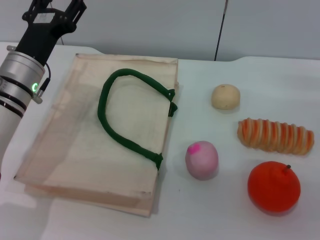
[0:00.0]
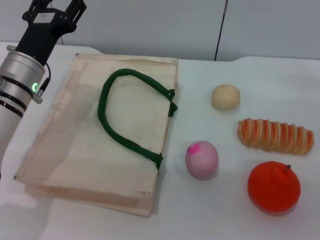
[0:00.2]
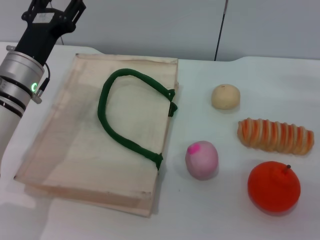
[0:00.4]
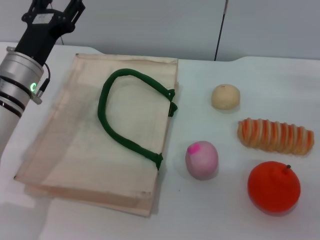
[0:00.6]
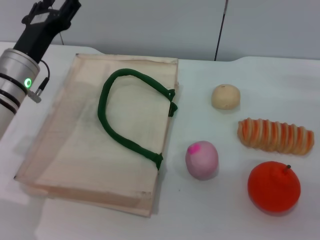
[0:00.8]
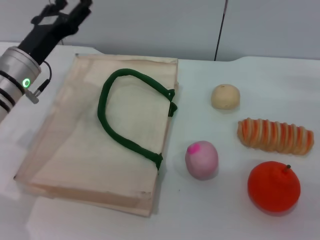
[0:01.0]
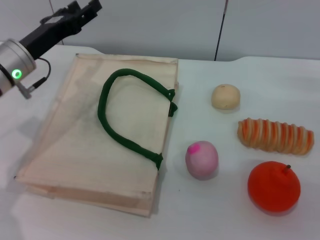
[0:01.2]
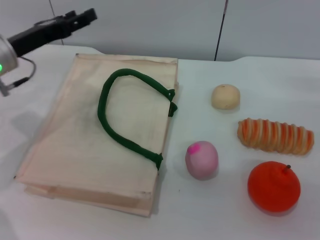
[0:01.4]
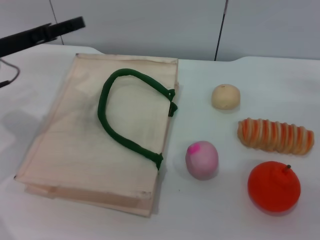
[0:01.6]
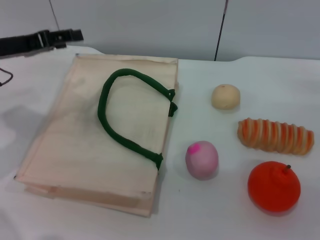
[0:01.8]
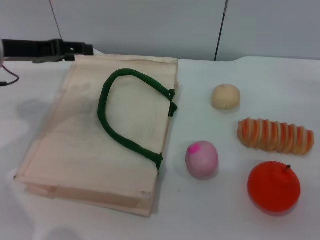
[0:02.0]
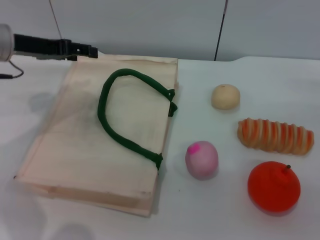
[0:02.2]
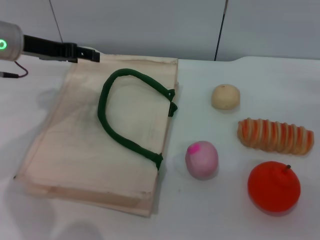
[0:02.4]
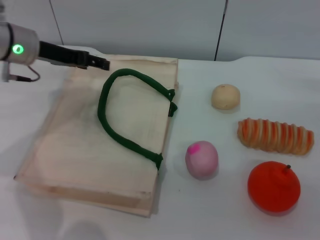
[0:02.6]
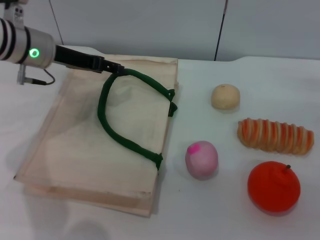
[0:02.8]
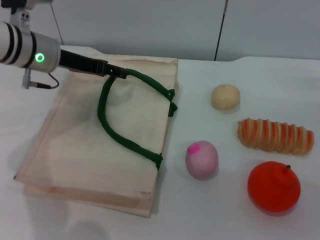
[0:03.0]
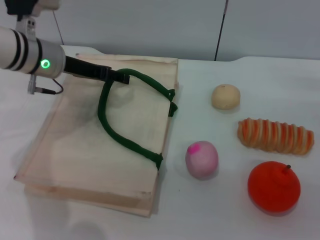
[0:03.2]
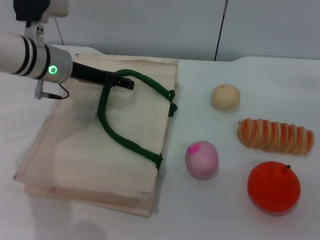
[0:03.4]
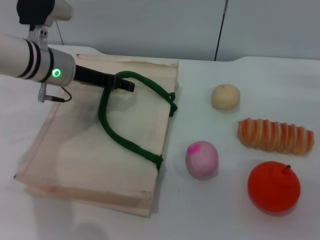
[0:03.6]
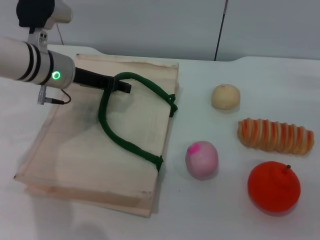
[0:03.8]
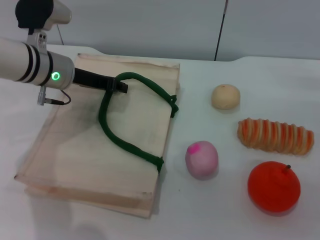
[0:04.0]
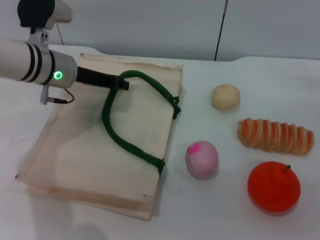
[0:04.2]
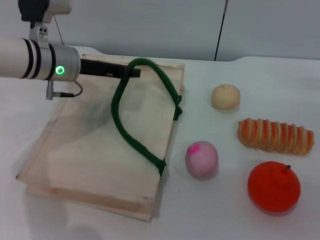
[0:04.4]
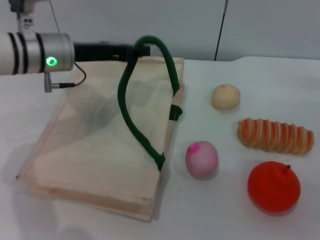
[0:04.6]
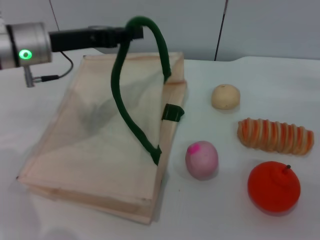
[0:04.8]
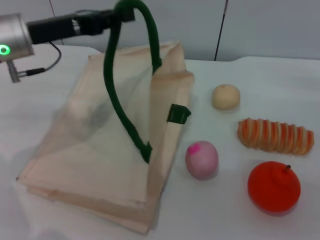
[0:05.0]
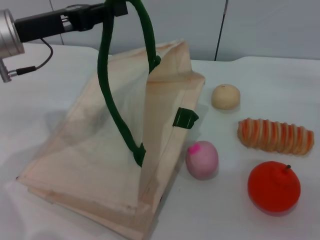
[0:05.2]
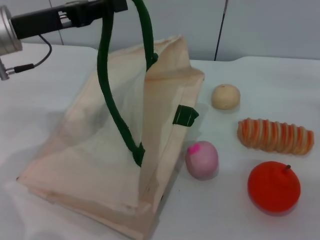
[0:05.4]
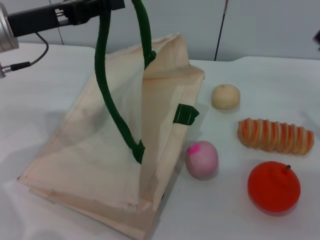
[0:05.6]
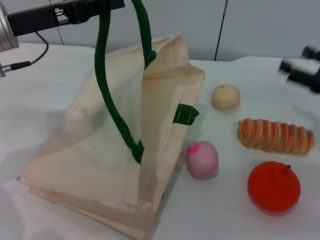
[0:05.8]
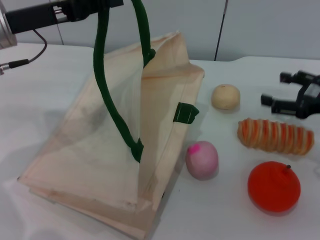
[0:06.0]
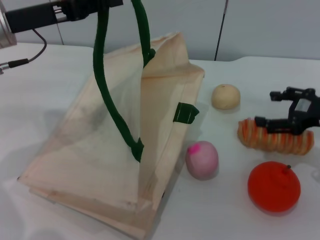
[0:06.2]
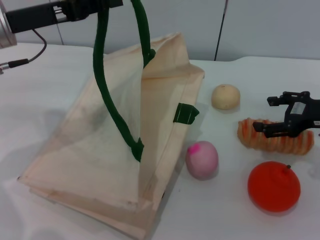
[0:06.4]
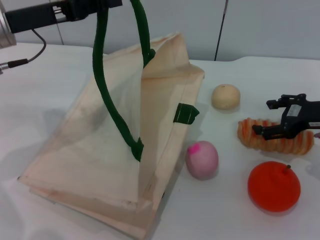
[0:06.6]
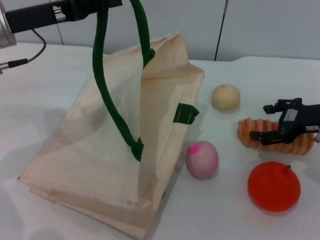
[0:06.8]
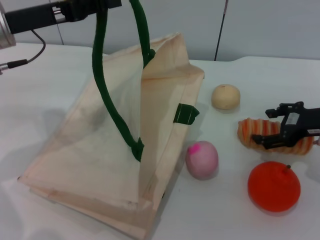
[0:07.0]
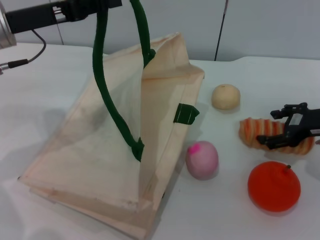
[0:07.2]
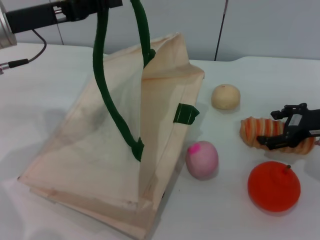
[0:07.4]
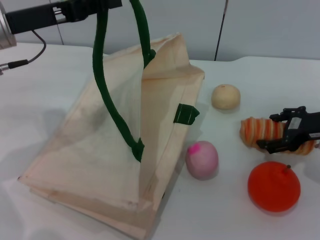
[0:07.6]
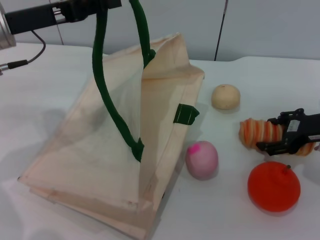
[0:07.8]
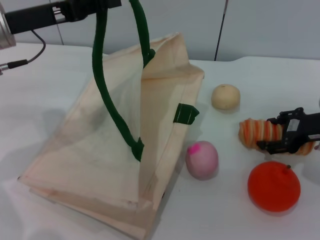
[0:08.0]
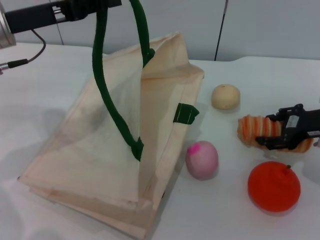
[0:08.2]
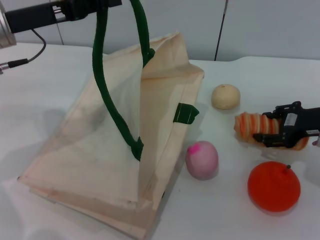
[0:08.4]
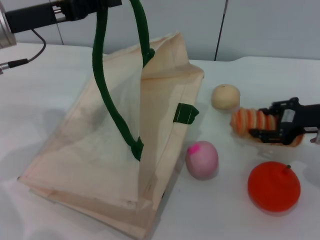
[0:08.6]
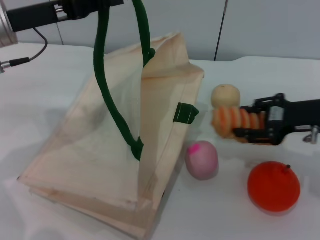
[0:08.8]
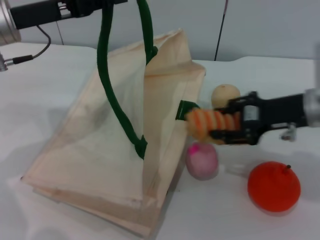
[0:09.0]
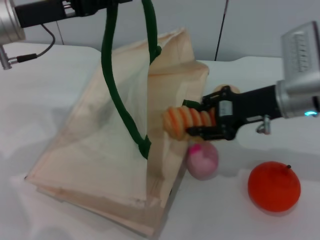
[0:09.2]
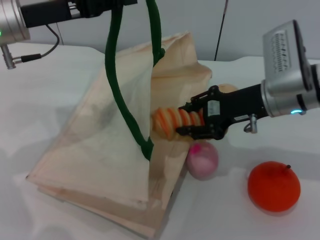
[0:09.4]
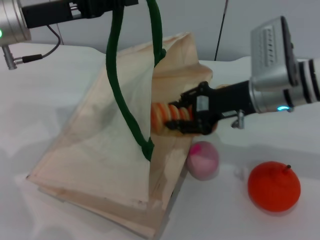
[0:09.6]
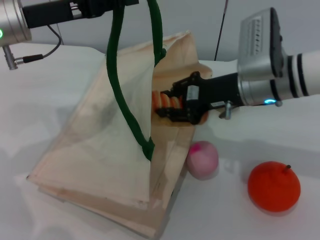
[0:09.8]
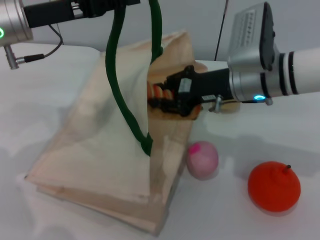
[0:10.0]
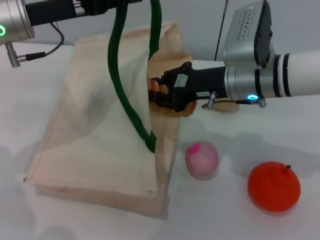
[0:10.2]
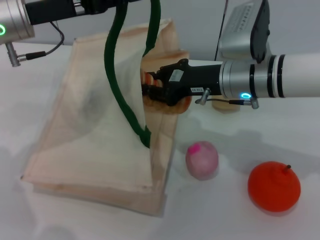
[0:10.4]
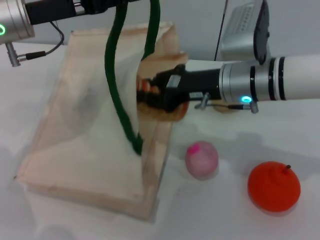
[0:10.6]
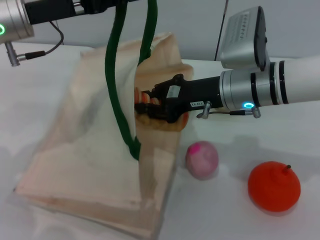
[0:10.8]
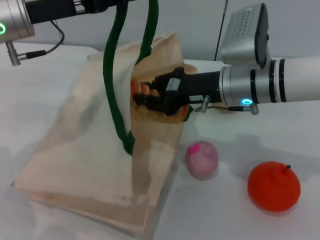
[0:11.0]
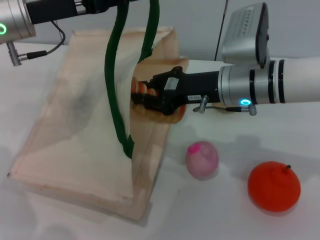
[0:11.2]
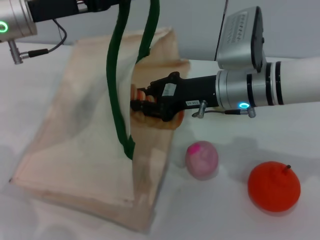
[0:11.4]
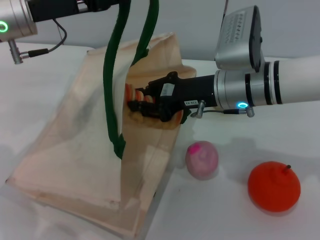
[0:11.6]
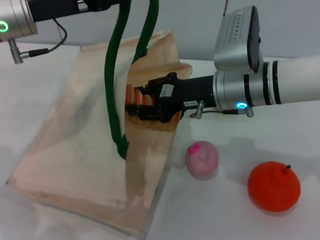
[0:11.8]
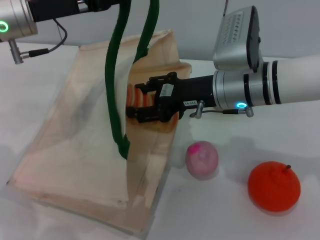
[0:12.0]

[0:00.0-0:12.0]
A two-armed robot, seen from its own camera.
Task of the whole recording: pick up the bread from the table and place it in the white handbag.
Step, 0:00.0 to 0:05.4: Lift the woven bag with the left gripper to open it.
Step, 0:05.6 to 0:08.8: Pick up the bread with the right gripper.
0:00.0 to 0:01.6: The left gripper shifts approximately 10 cm to the left and upward.
0:01.6 to 0:03.0: The left gripper shifts some 10 cm to the right and forward.
0:03.0 to 0:04.4: The left gripper closes its fingers.
0:04.4 to 0:06.0: The left gripper is displaced upward and to the left by roughly 10 cm. Meanwhile the right gripper changes place by some 5 cm.
0:07.6 to 0:09.0: The right gripper moves to the left, approximately 5 cm, and closes.
0:09.0 to 0:10.4: The right gripper goes approximately 10 cm to the left, and closes.
0:10.4 to 0:12.0: The right gripper opens up.

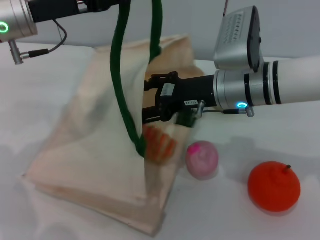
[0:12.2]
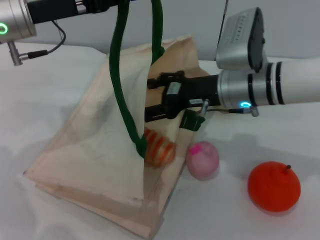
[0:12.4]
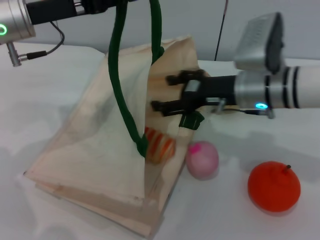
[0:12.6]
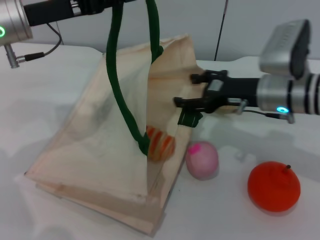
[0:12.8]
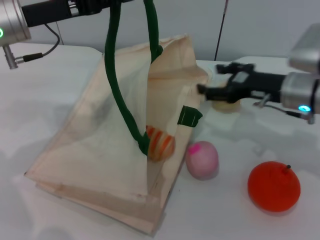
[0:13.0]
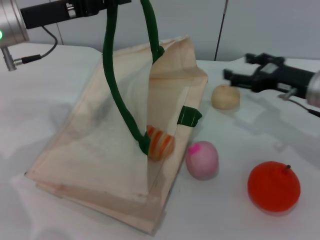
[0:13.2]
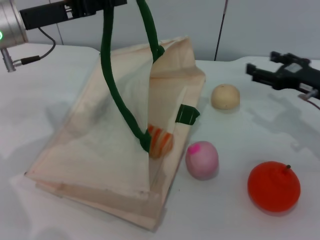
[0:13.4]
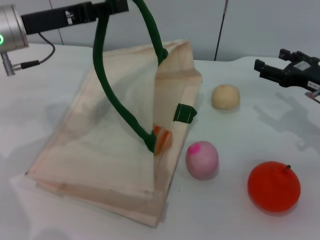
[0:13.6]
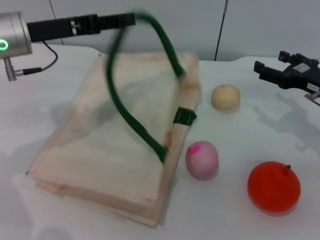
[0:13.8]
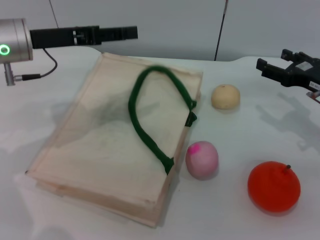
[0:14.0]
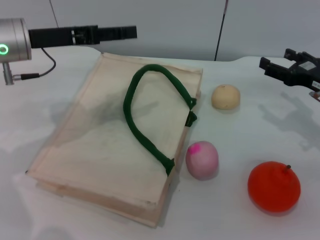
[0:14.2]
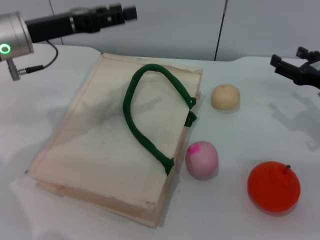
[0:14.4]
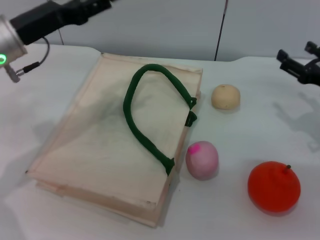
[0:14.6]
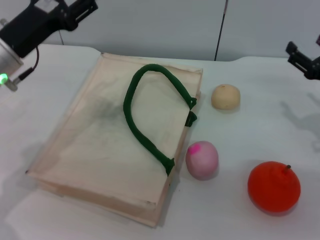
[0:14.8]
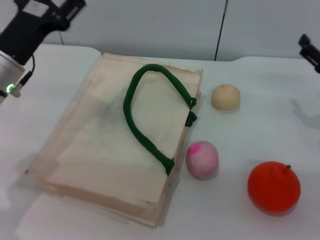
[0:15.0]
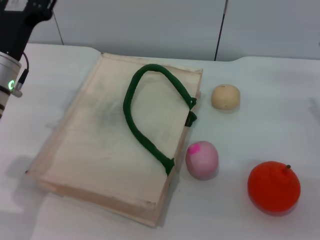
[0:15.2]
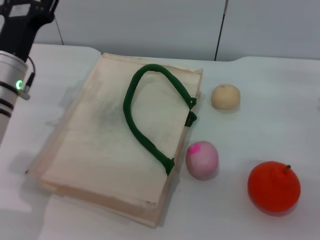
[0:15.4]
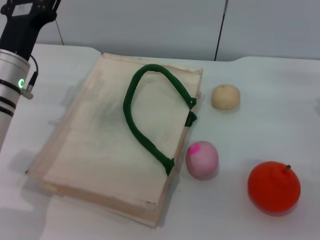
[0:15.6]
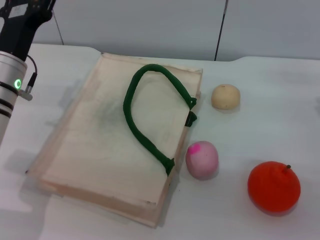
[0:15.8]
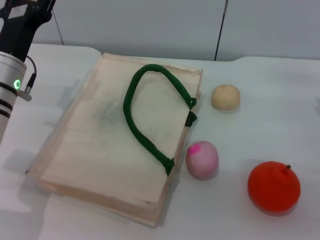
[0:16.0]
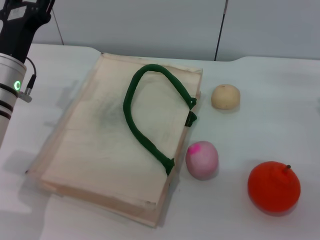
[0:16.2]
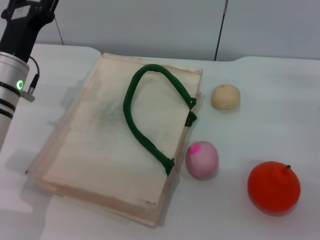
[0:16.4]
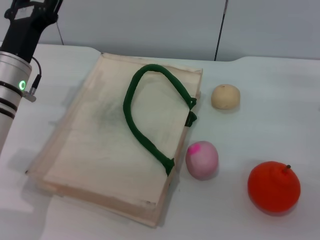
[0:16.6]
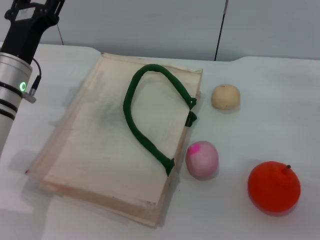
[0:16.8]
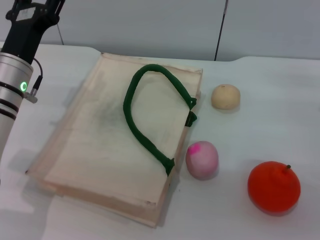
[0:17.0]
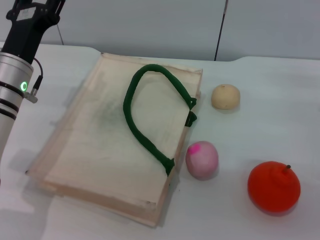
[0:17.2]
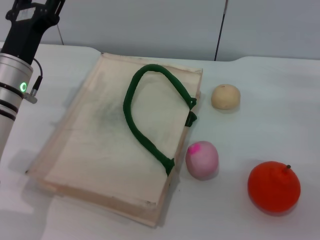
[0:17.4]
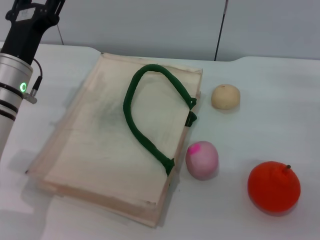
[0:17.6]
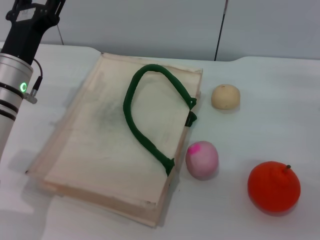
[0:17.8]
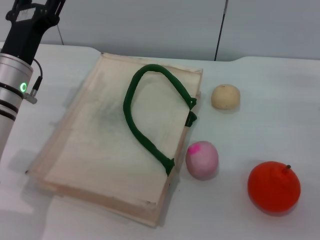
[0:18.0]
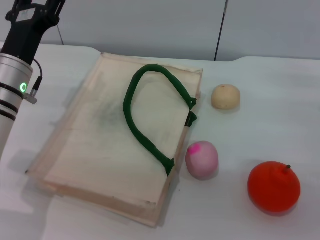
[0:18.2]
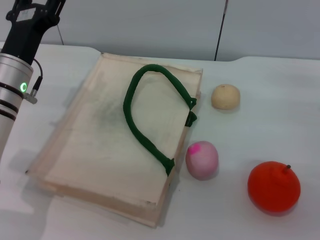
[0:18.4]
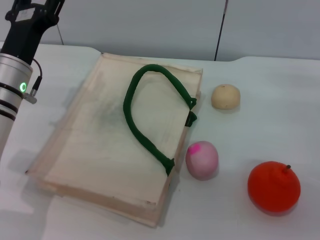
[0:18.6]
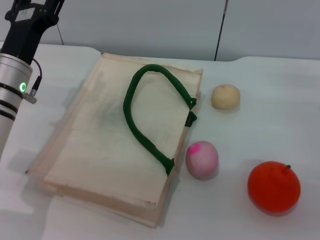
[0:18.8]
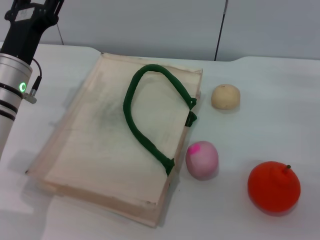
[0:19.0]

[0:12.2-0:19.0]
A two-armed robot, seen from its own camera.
Task of the whole recording: pick up the bread from the table and place it in the white handbag.
Step, 0:13.0 to 0:15.6: Lower the woven bag with the left gripper to close it.
0:12.2 to 0:13.6: The right gripper is displaced to the right by about 20 cm, and opens up.
0:13.6 to 0:15.0: The left gripper travels downward by roughly 5 cm, and opens up.
0:16.2 to 0:19.0: Both grippers stay about where they are.
